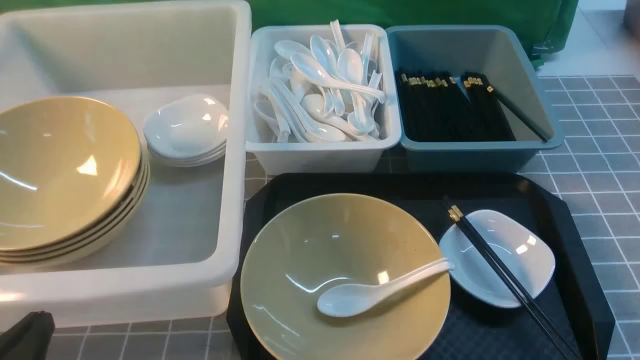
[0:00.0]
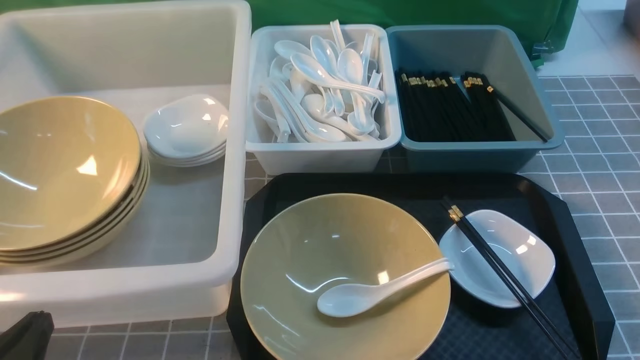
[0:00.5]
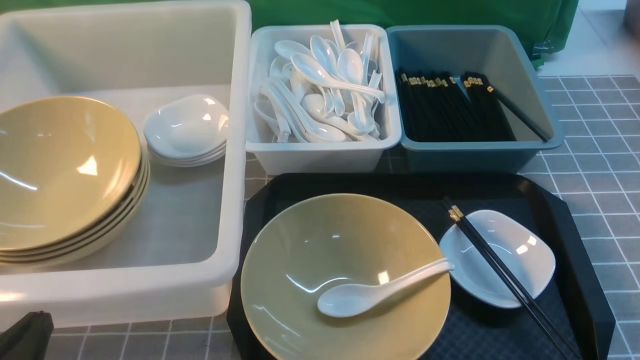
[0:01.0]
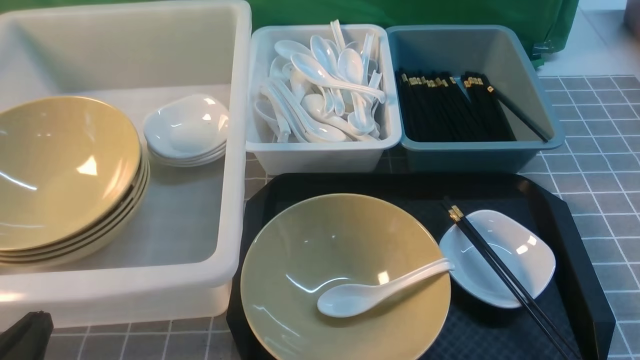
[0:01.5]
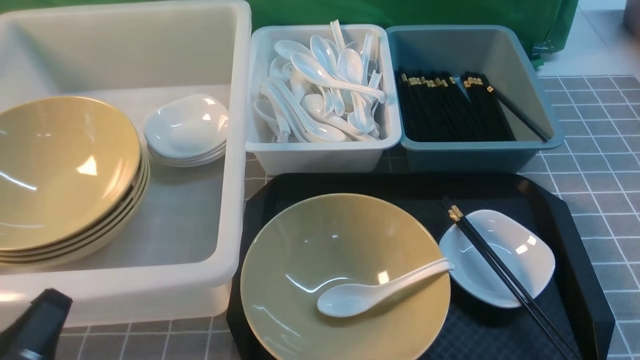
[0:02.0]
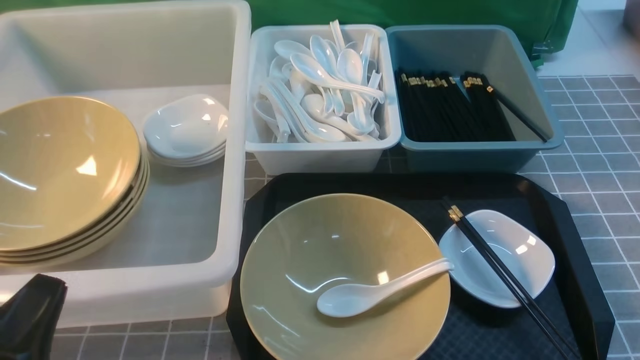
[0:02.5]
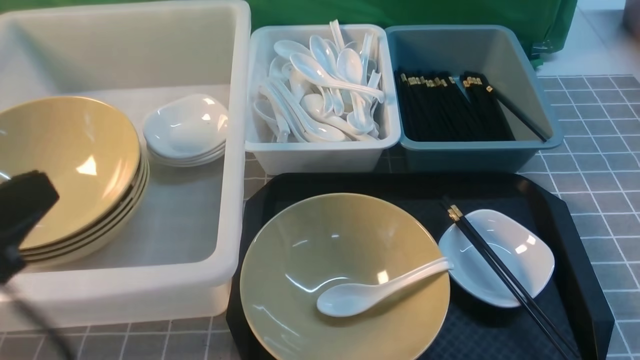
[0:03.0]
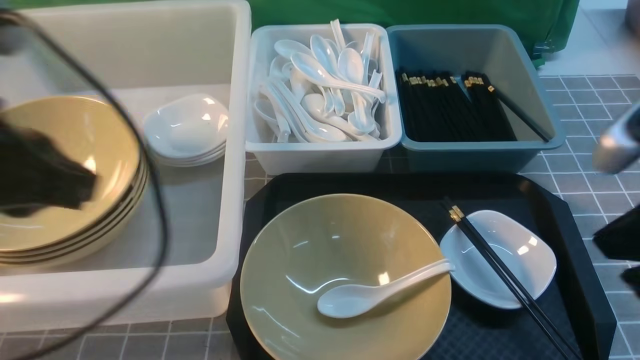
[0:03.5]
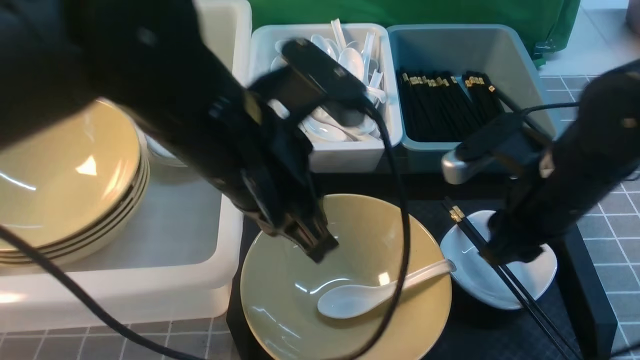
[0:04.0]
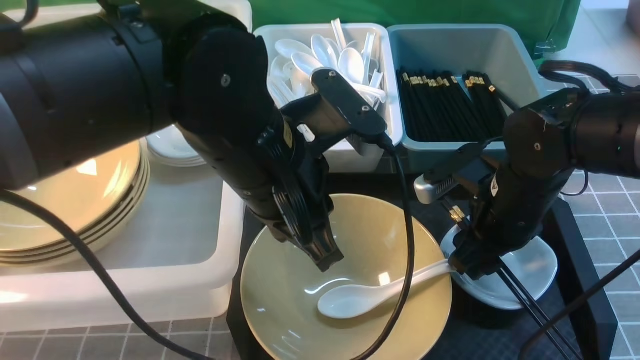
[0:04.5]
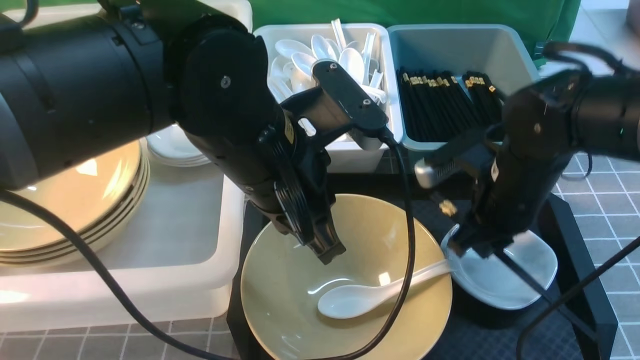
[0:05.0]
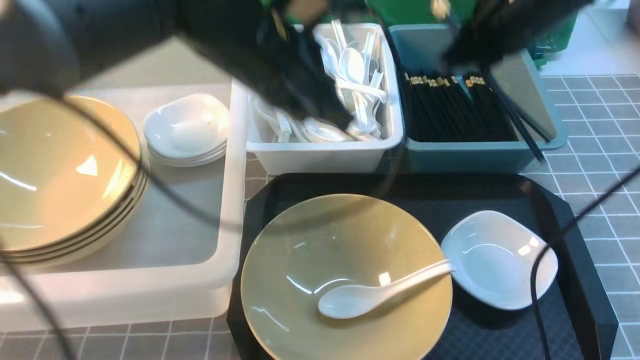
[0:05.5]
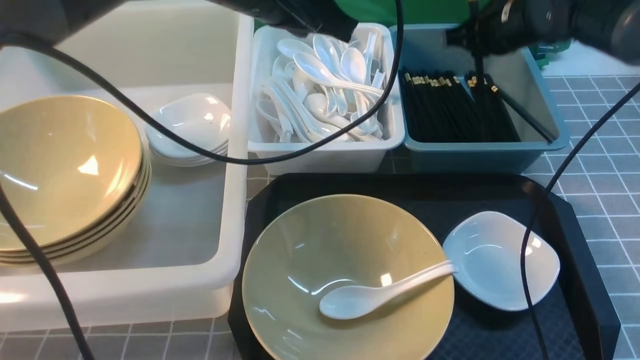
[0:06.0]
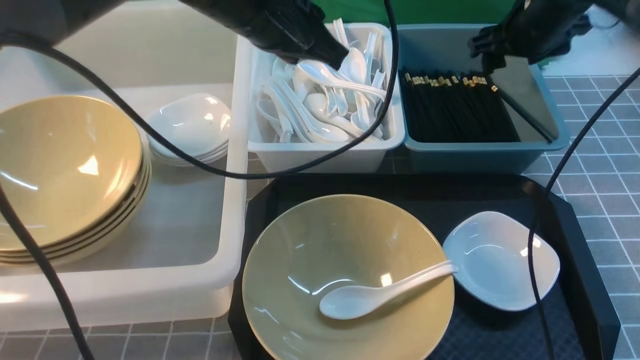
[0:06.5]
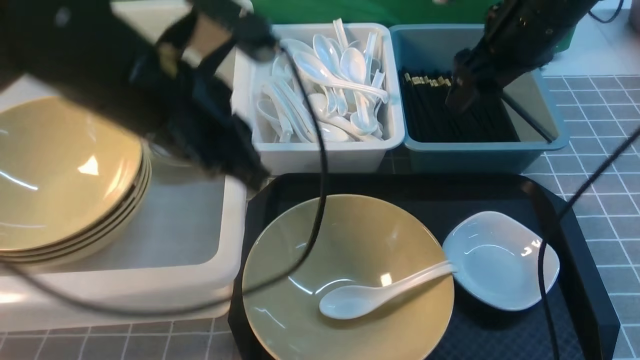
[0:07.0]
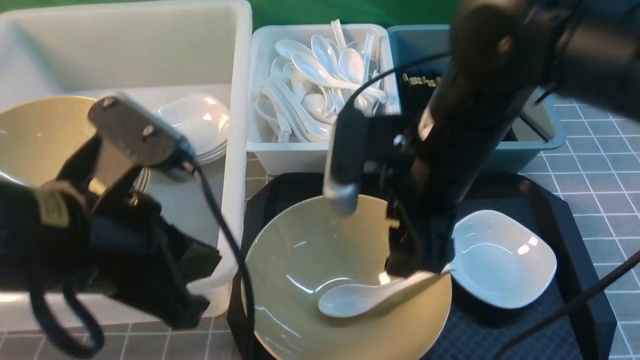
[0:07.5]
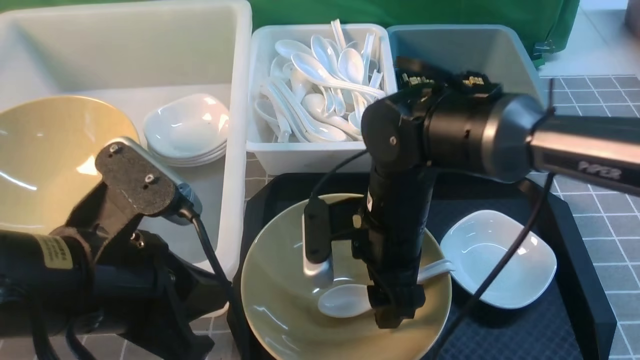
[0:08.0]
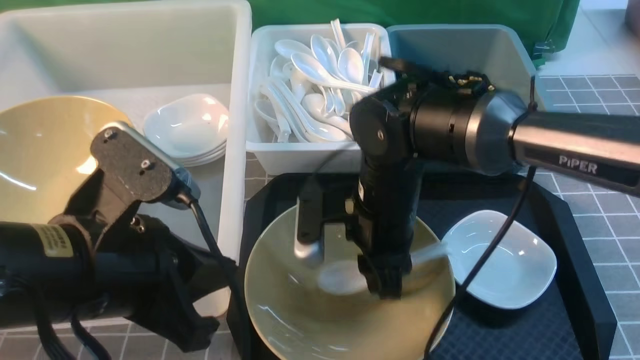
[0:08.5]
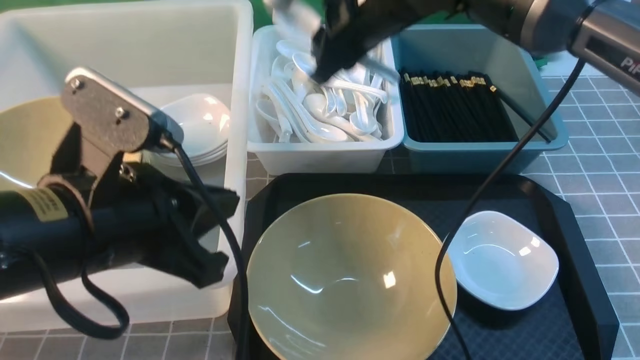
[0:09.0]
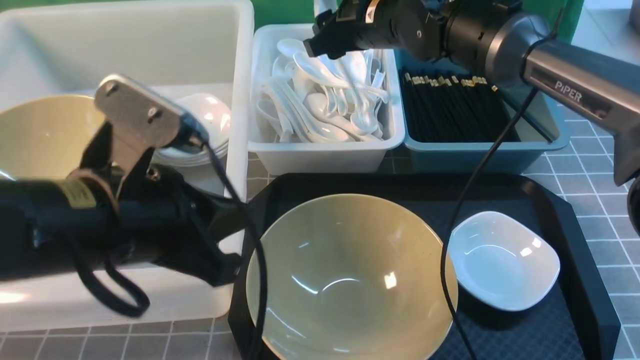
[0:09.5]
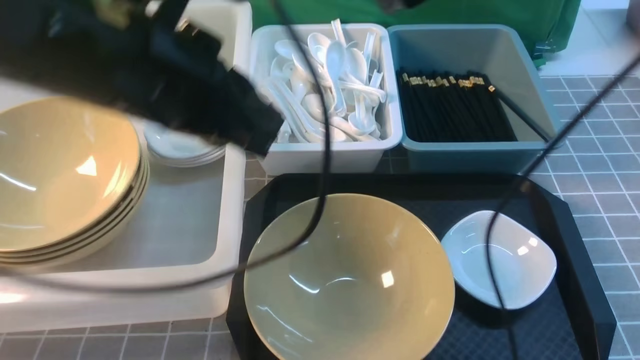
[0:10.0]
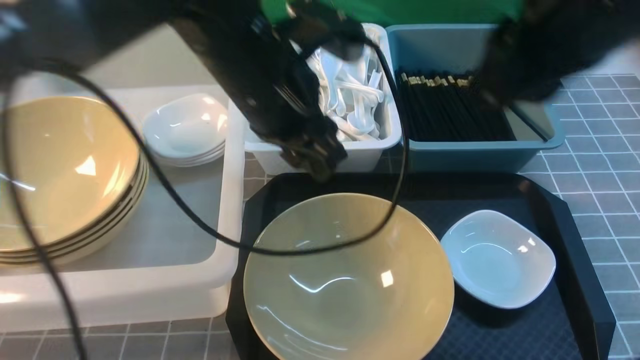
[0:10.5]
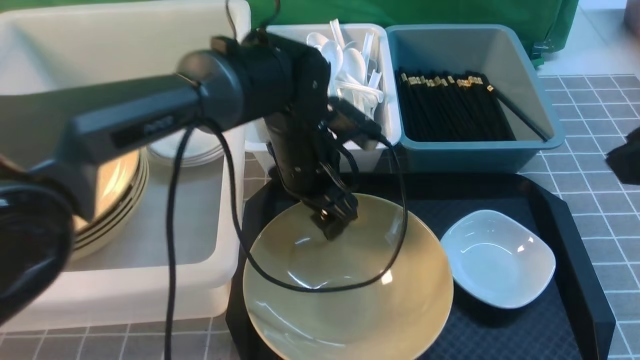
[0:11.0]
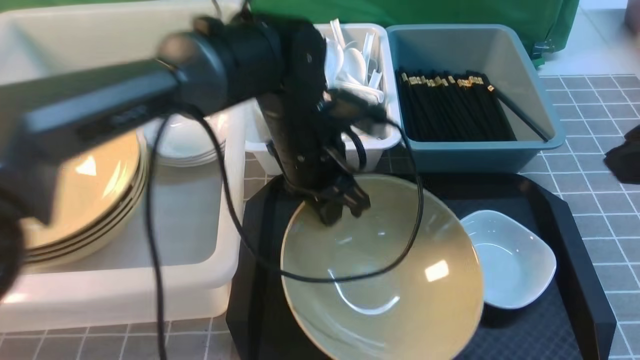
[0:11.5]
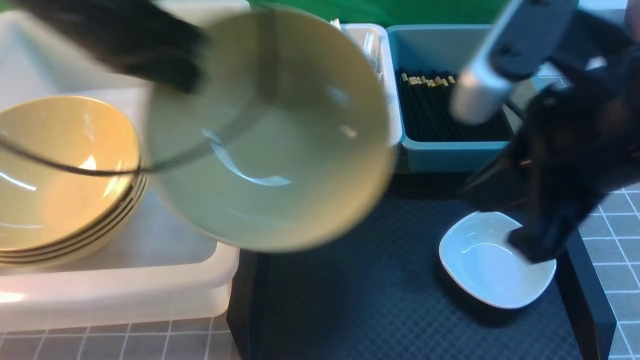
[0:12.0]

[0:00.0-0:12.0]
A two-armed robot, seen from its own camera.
Task of the whole recording: on grey table put chopsticks spoon bowls plates into blue grey white boxes.
Step, 0:00.0 to 0:04.5: use the right arm to grab the chopsticks.
Step, 0:05.5 to 0:06.0: use the right arm to put the chopsticks into the small storage box on the right.
Step, 0:07.0 to 0:08.5: use the right arm to grab the soup spoon in the middle.
Step, 0:09.0 to 0:09.5: use the right arm to put the soup spoon into the small storage box in the middle.
Step, 0:10.0 to 0:11.5: use the left arm to grab the yellow noodle bowl on the left.
0:02.0 to 0:04.0: The left gripper heads to the right, forward and upward, covering some 30 cm, while the right gripper goes some 25 cm forward and to the left, and closes, then reopens.
0:04.0 to 0:06.0: The left gripper is displaced forward by about 15 cm, while the right gripper travels forward by about 20 cm.
0:06.0 to 0:08.0: The left gripper travels backward, to the left and downward by roughly 25 cm; the right gripper goes approximately 25 cm backward and to the left, and opens.
0:08.0 to 0:10.0: The right gripper goes some 20 cm upward. Meanwhile the left gripper goes some 15 cm upward and forward.
0:10.0 to 0:12.0: The right gripper shifts about 20 cm backward, and closes up. Meanwhile the left gripper goes roughly 10 cm to the left and forward, travels downward and back again, about 20 cm each way, and opens, then closes once more.

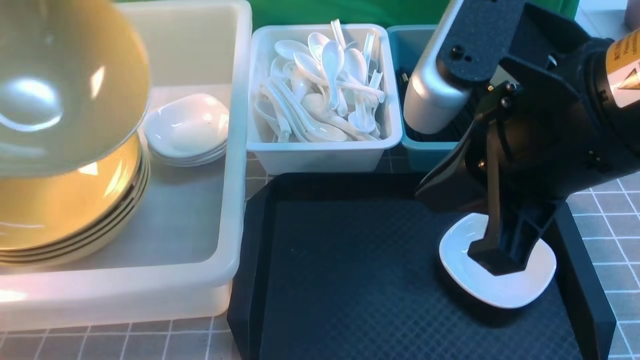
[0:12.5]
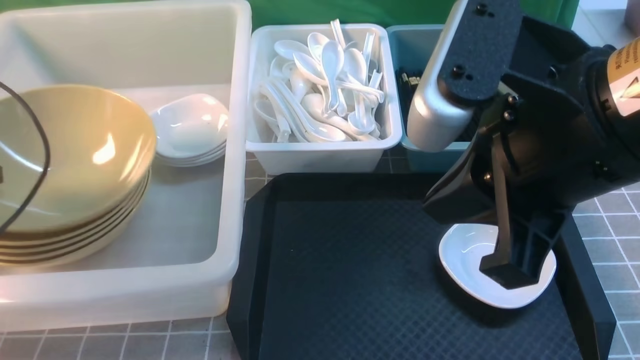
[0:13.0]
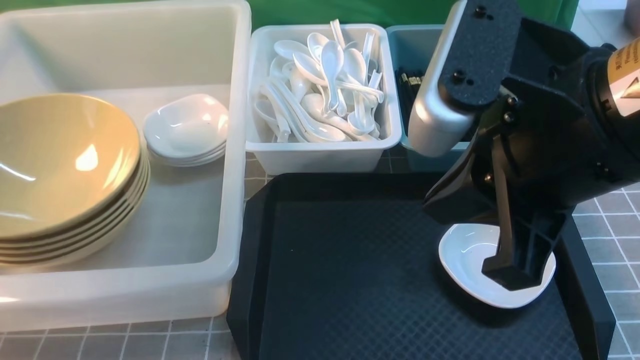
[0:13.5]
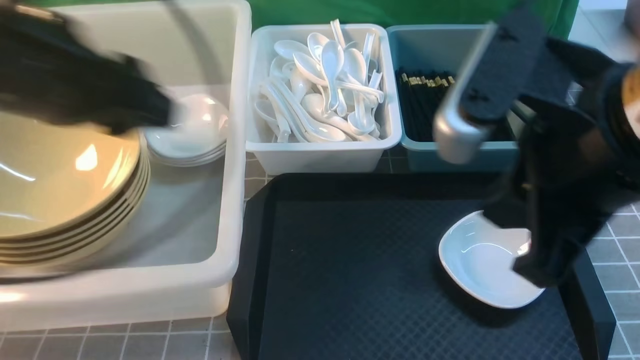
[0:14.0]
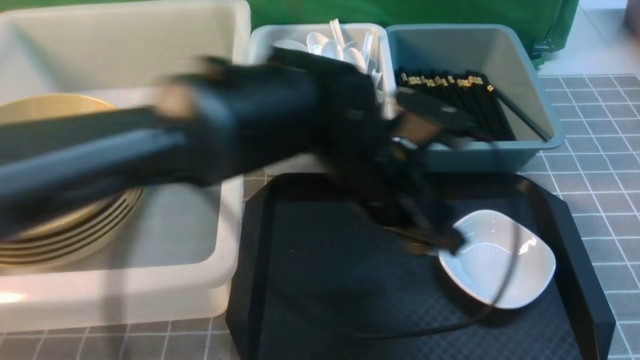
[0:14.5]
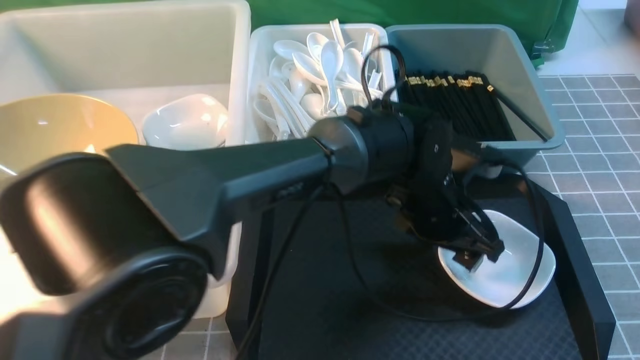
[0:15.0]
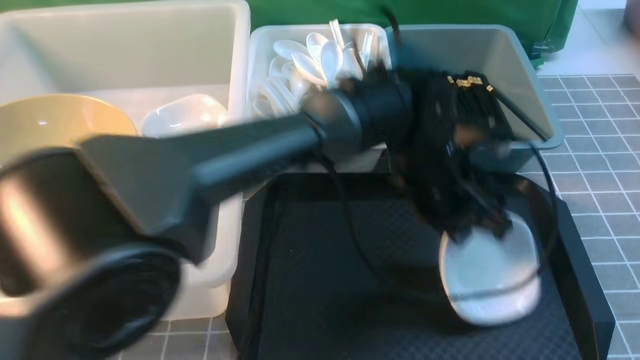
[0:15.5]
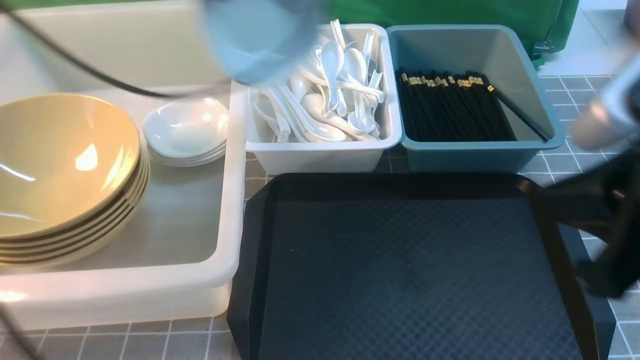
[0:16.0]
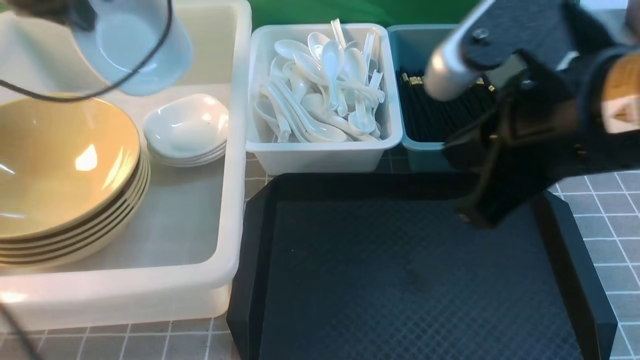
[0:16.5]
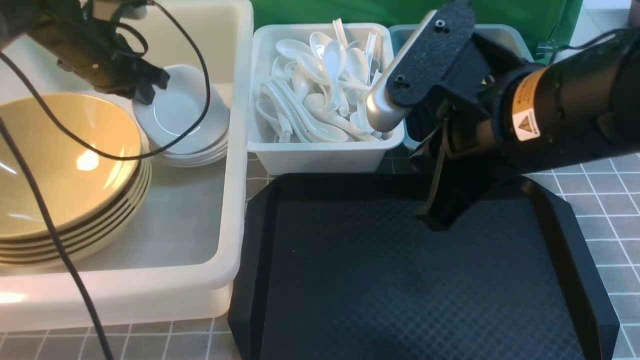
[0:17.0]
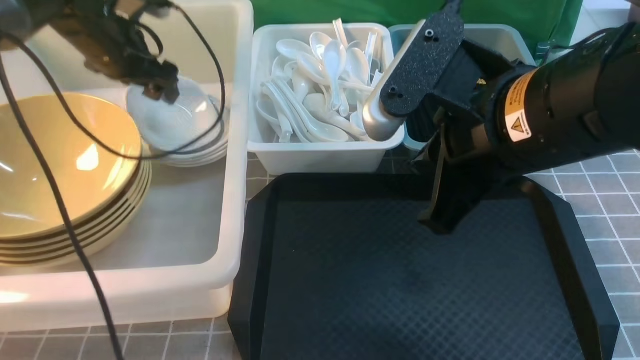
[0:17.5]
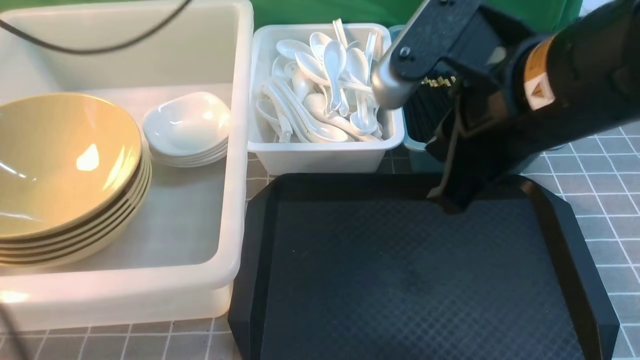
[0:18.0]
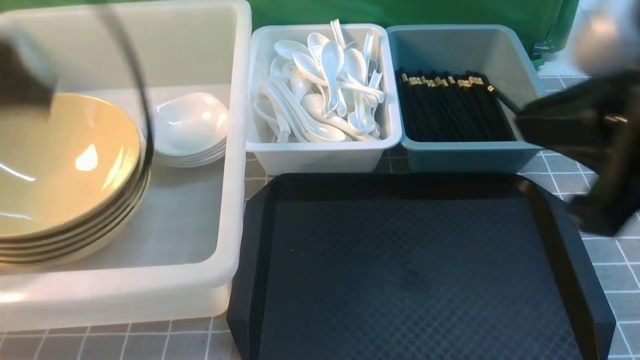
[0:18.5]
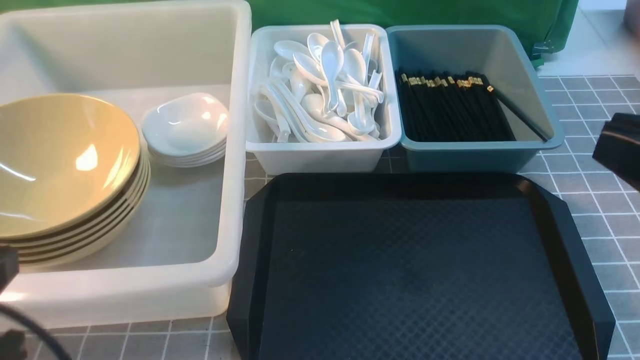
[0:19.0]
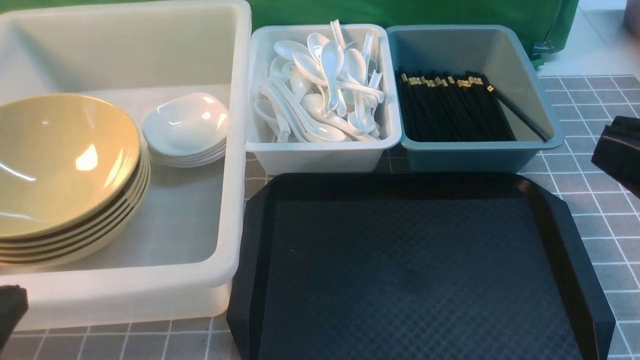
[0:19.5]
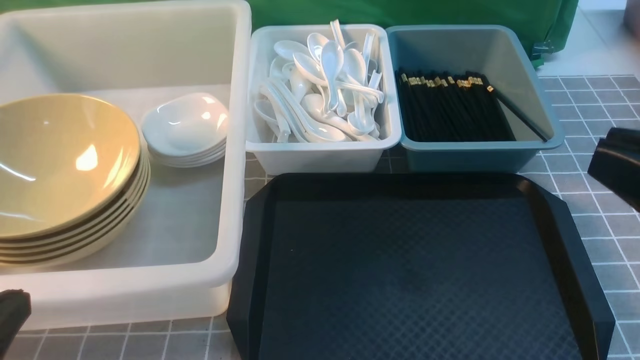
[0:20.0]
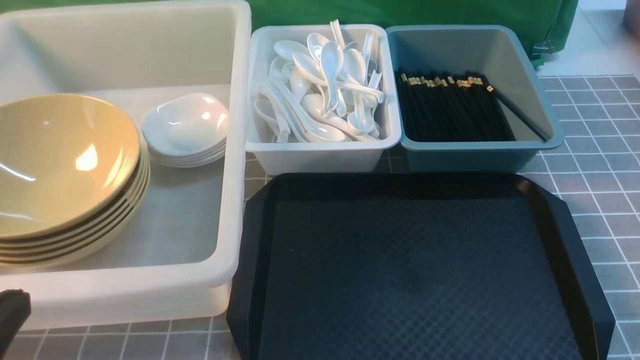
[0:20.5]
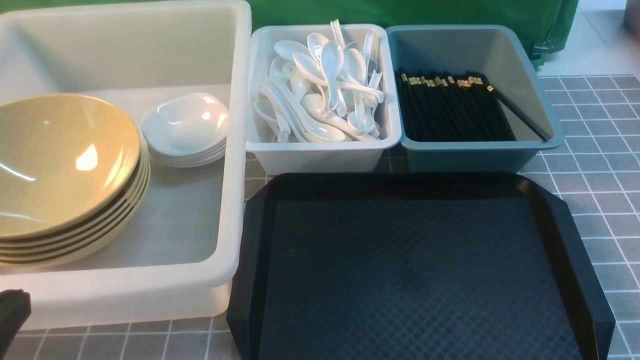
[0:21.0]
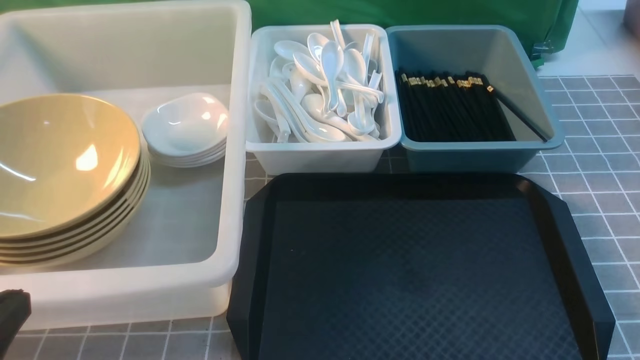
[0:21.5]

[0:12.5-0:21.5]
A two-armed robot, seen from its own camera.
Task of the whole recording: on grey table put chopsticks spoon bowls plates into blue grey white boxes.
Step, 0:13.5 to 0:15.5: use the left arm to grab the plate.
Step, 0:16.0 to 0:17.5: use the left arm to put the plate into the large storage box on the left.
0:12.5 to 0:14.5: The right gripper is displaced to the right and backward by roughly 15 cm; the left gripper travels to the right by some 40 cm, and opens.
0:14.5 to 0:17.0: The left gripper travels to the left and forward by some 35 cm, and closes up. Meanwhile the right gripper is displaced to the left and forward by roughly 20 cm.
0:17.0 to 0:19.5: The right gripper moves backward and to the right, some 20 cm, while the left gripper travels backward by approximately 40 cm, and opens, then closes again.
0:19.5 to 0:21.5: The right gripper shifts about 20 cm downward and to the right.
